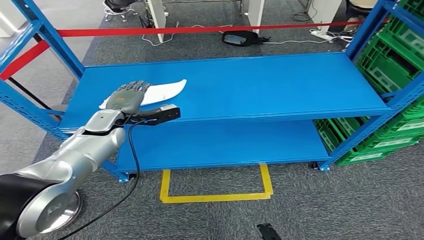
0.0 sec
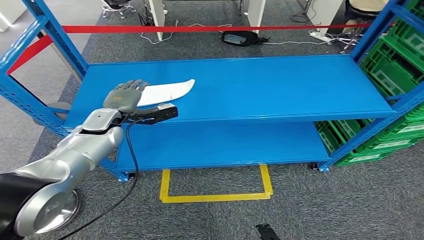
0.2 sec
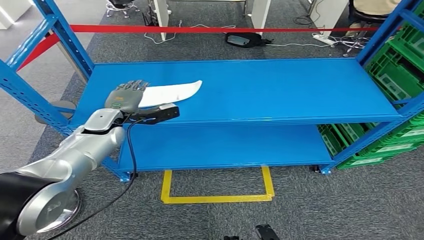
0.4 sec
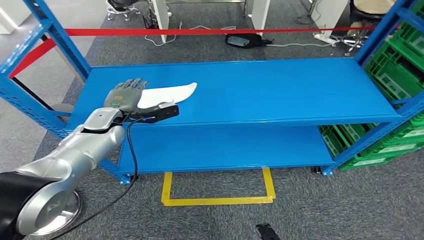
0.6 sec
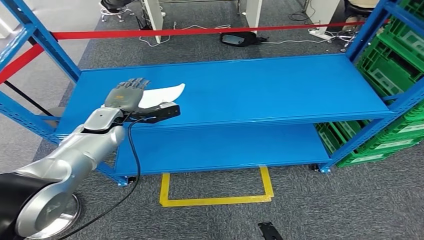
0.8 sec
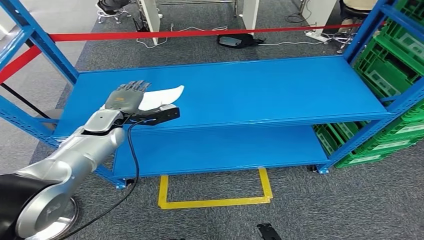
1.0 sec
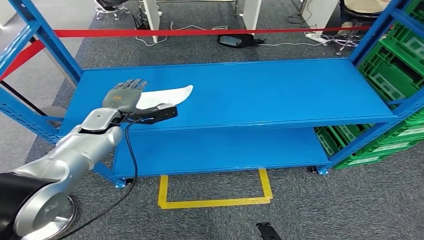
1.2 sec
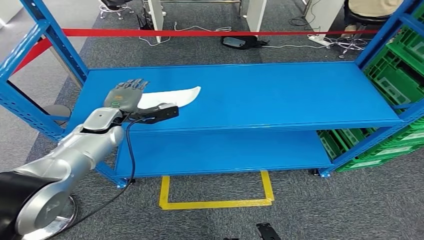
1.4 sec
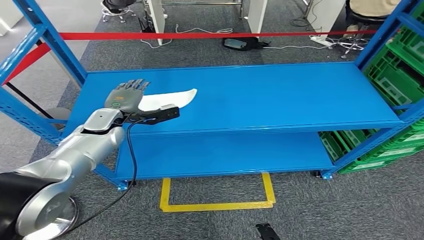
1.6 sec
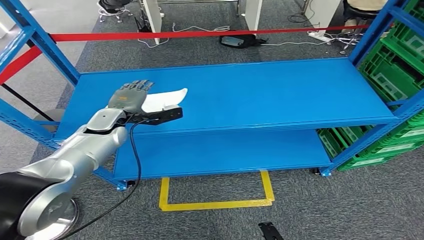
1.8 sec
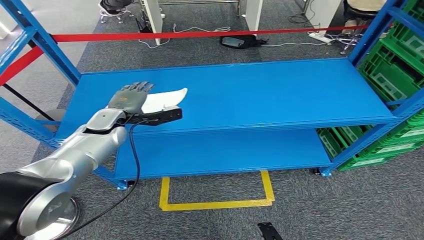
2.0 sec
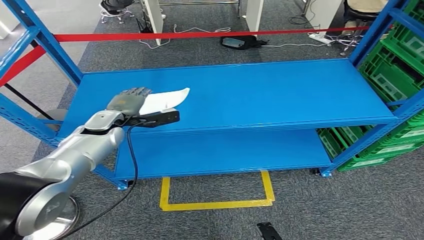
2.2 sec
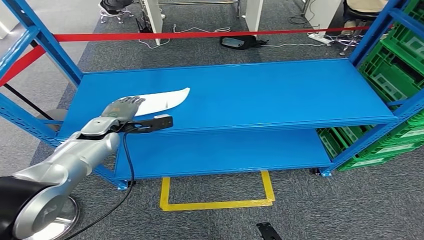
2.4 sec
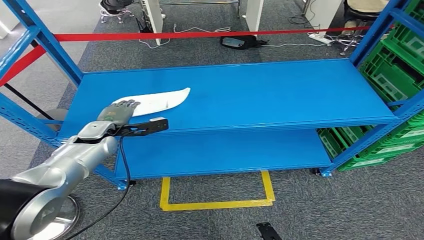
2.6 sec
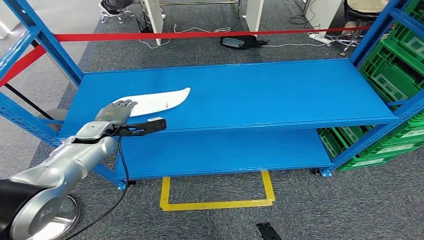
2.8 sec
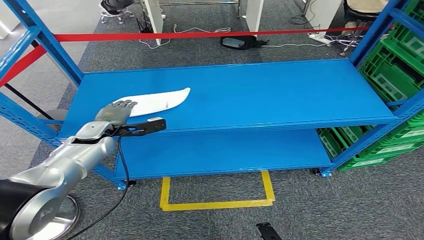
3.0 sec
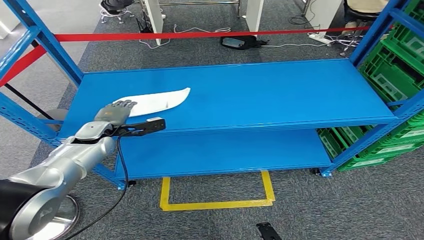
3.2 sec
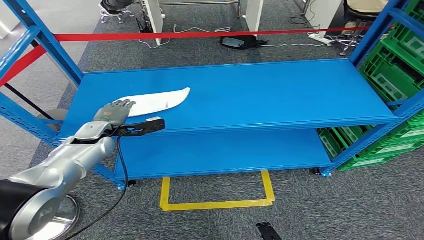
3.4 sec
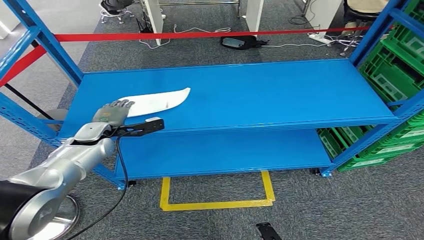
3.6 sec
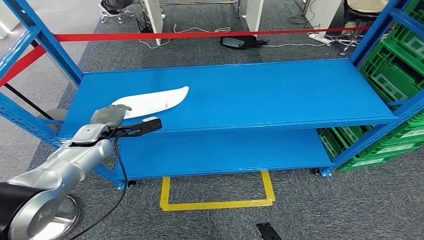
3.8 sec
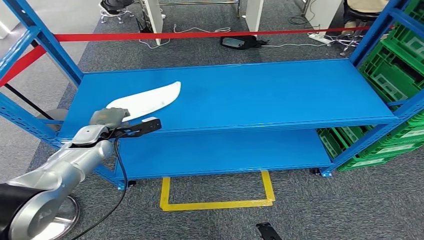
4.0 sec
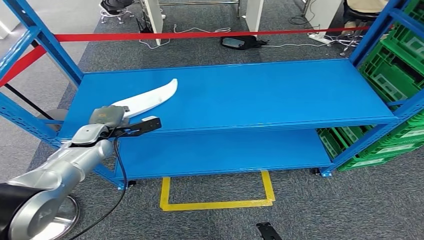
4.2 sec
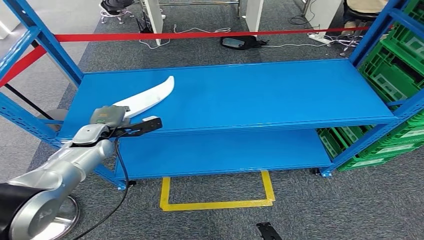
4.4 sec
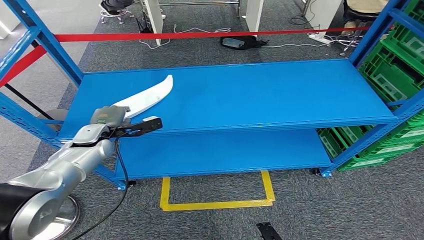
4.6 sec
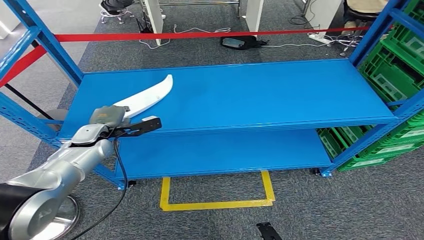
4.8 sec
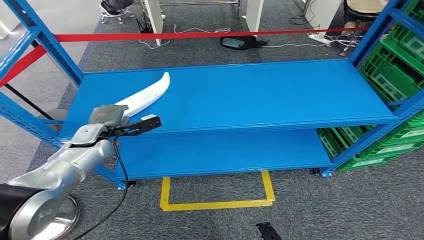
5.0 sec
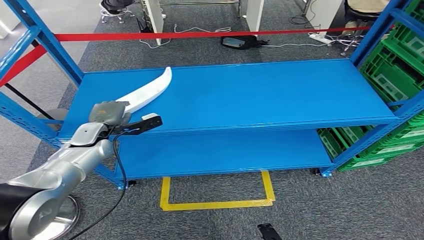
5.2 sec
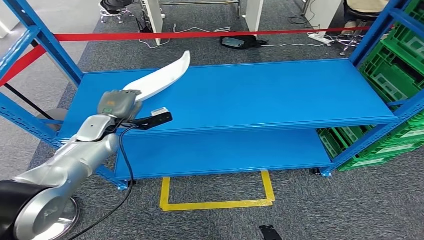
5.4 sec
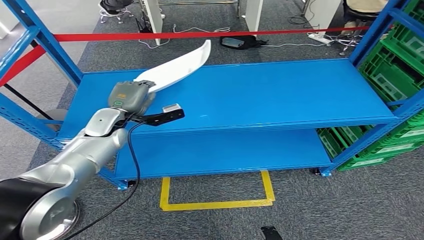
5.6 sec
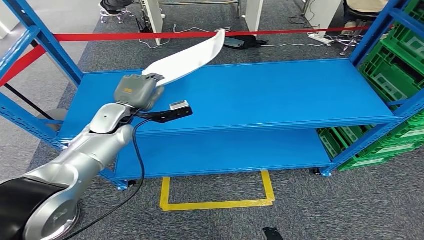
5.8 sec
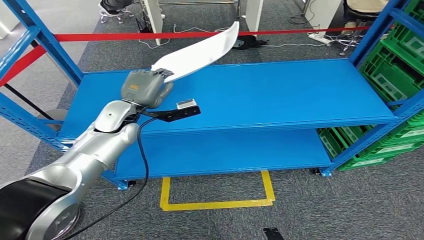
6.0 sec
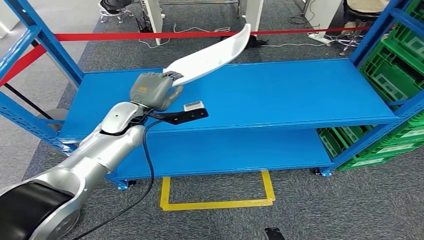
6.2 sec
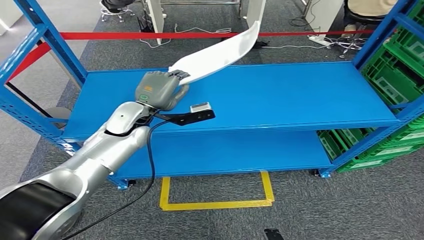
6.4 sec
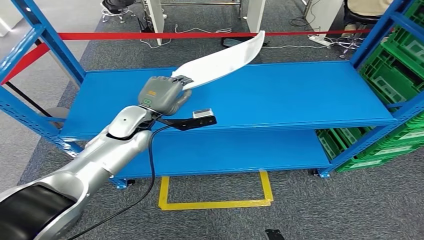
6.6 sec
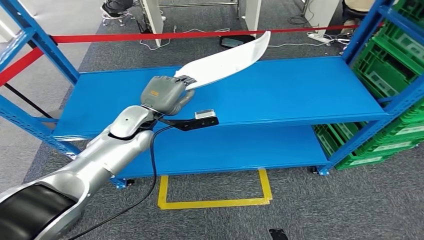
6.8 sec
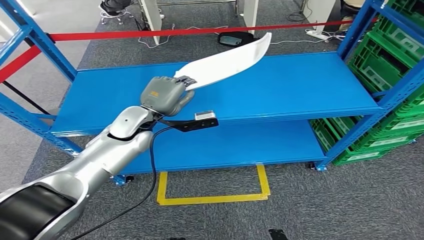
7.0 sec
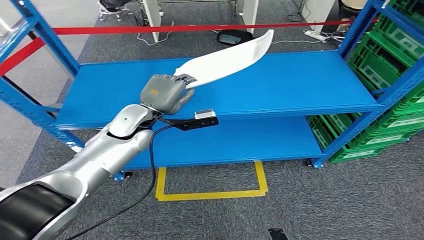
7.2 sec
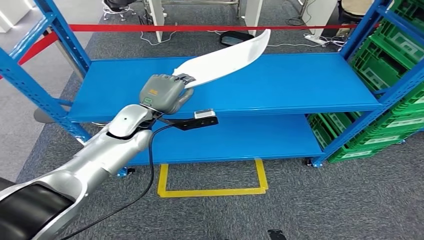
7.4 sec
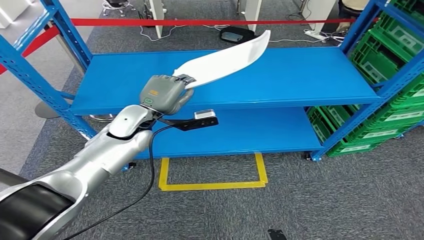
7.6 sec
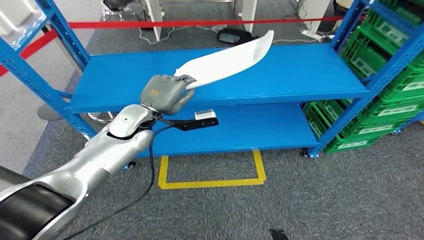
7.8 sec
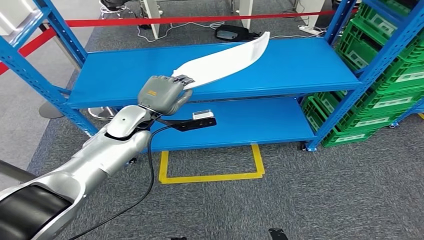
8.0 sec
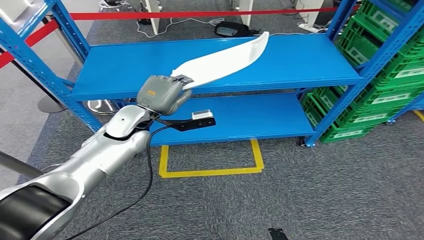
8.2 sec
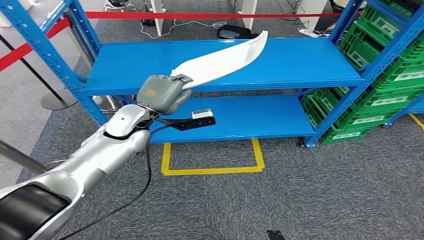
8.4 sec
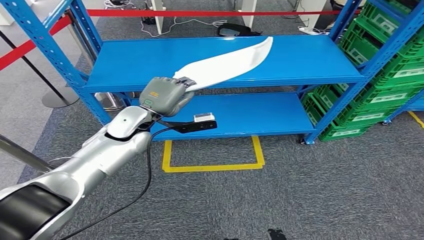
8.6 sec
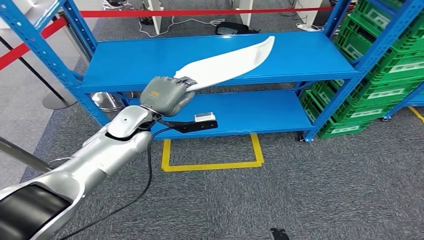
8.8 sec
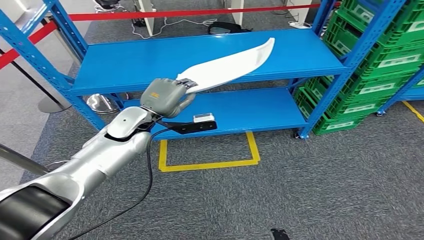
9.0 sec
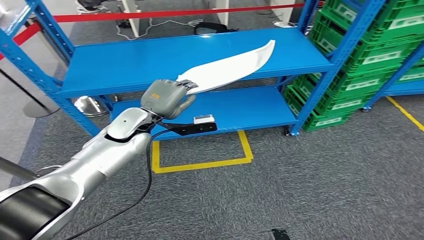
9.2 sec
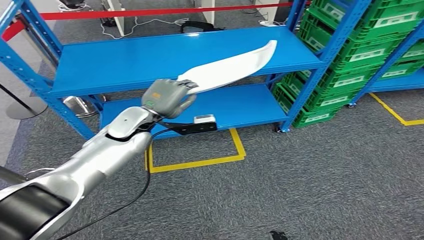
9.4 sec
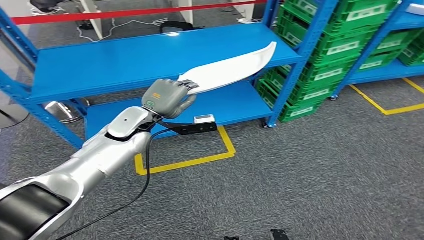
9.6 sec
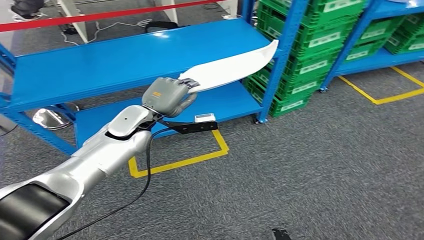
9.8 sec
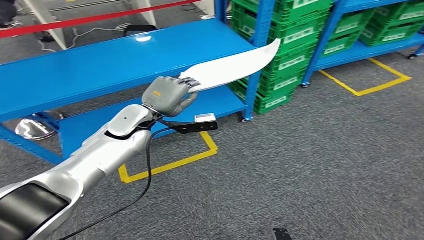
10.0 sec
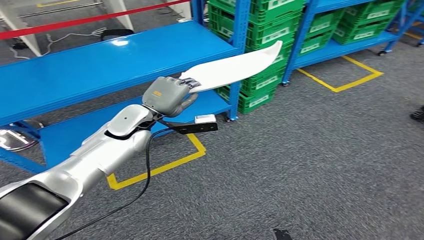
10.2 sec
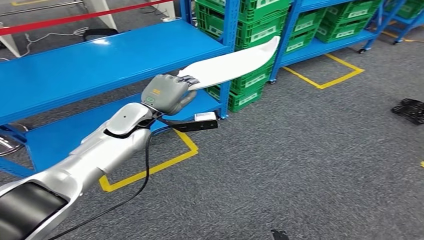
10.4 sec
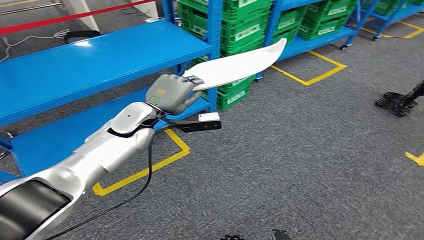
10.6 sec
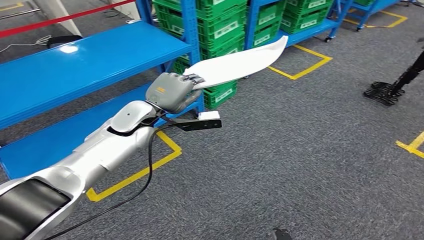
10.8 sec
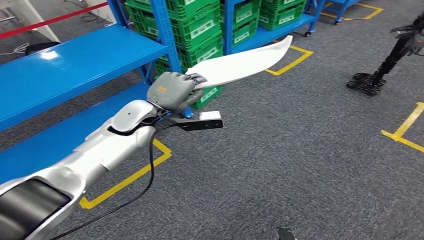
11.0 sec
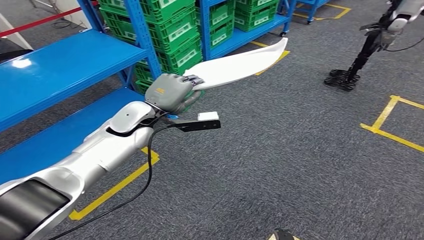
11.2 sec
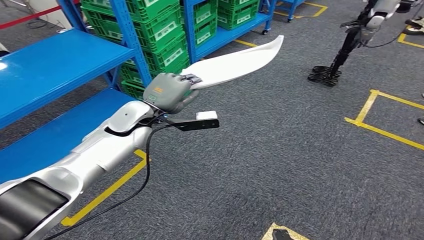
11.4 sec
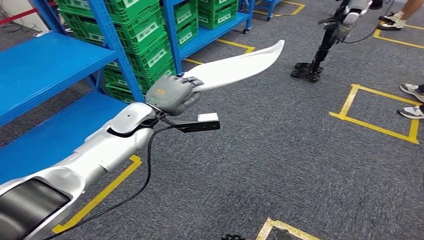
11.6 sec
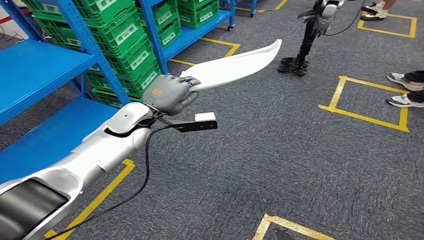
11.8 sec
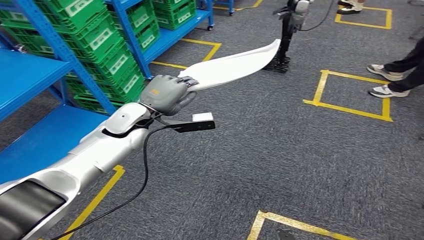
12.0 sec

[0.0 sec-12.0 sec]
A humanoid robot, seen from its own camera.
Step, 0.0 sec to 7.2 sec: Pick up the small parts from the shelf.
1.6 sec to 3.0 sec: The left hand changes place by approximately 5 cm.
3.0 sec to 4.4 sec: The hands make only small movements.
4.4 sec to 6.0 sec: The left hand is displaced to the right and upward by approximately 15 cm.

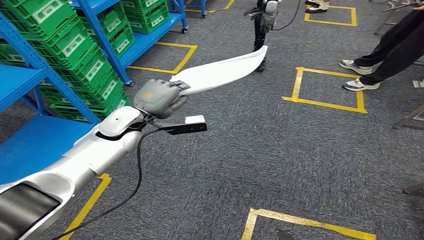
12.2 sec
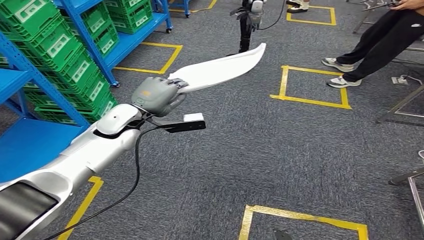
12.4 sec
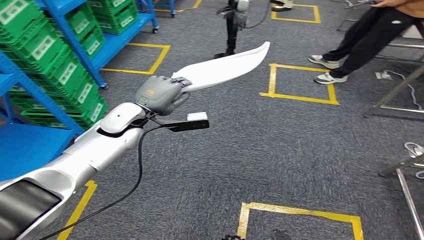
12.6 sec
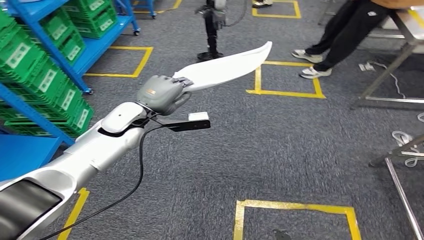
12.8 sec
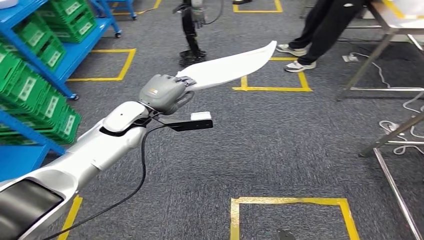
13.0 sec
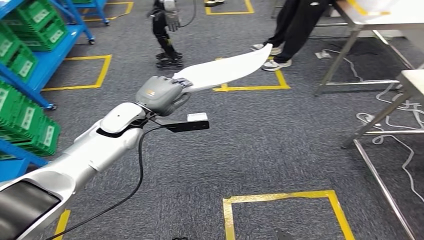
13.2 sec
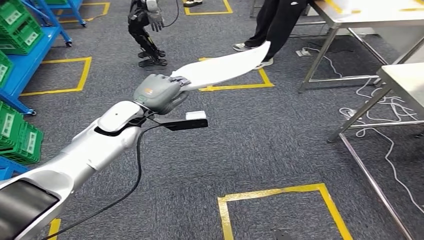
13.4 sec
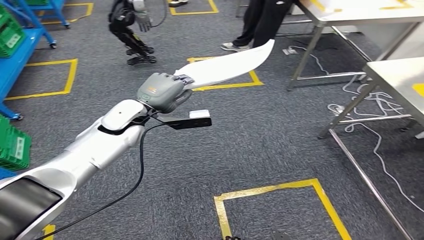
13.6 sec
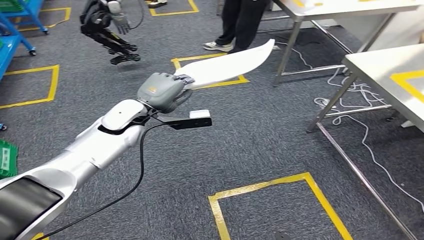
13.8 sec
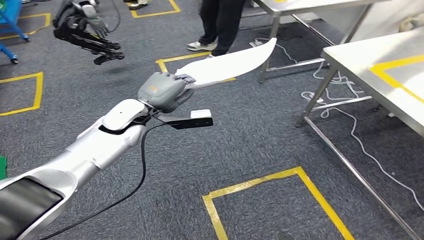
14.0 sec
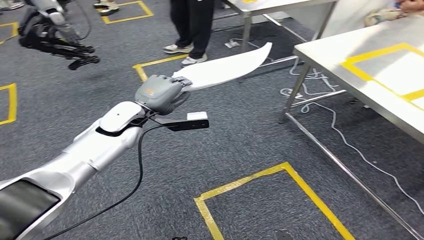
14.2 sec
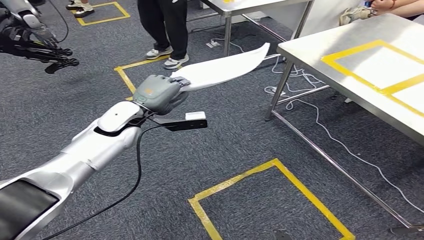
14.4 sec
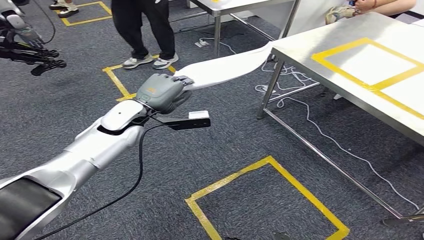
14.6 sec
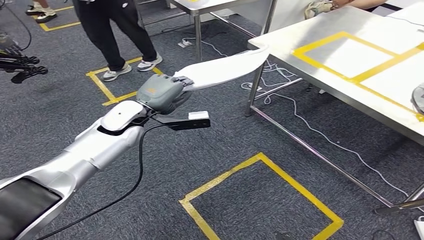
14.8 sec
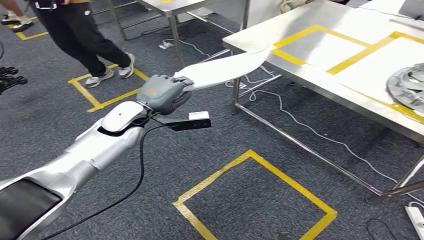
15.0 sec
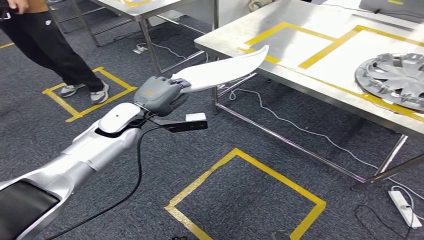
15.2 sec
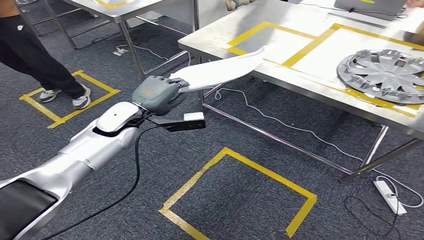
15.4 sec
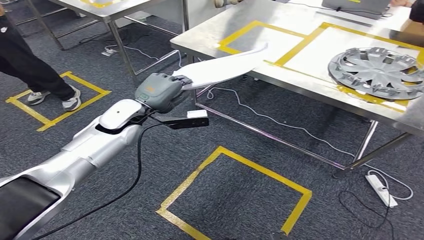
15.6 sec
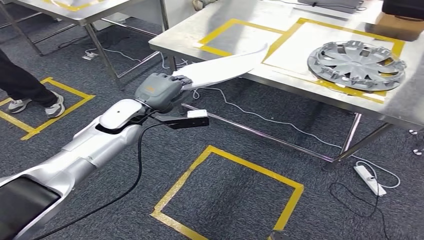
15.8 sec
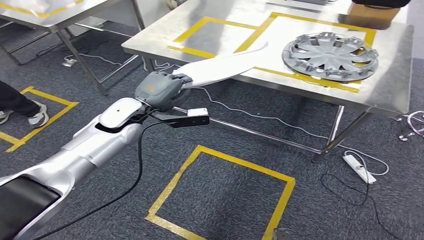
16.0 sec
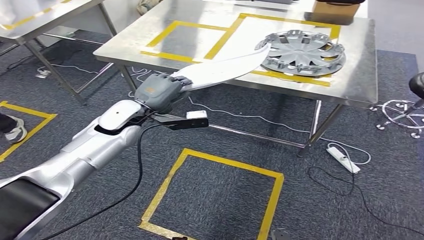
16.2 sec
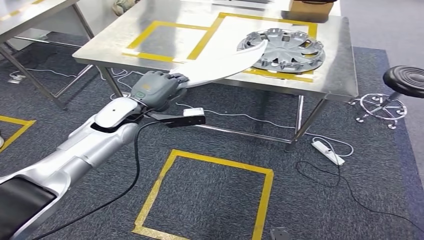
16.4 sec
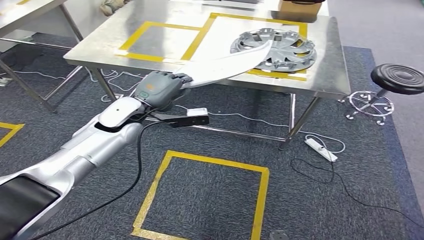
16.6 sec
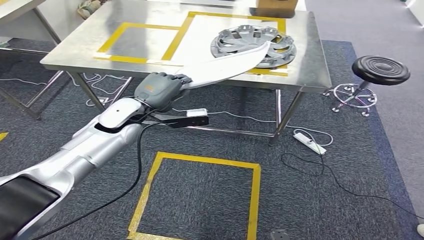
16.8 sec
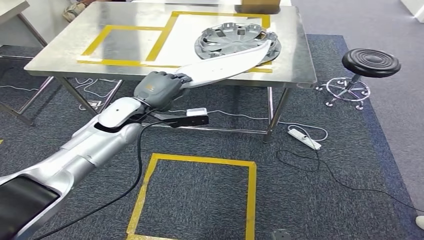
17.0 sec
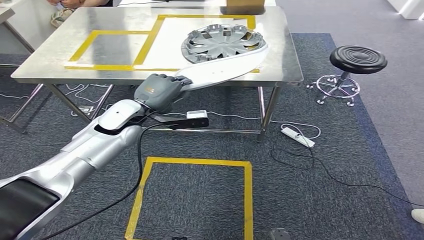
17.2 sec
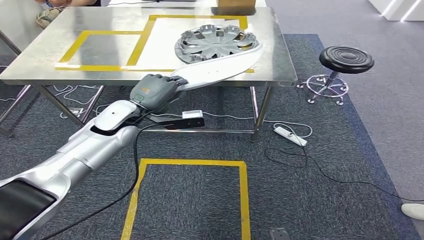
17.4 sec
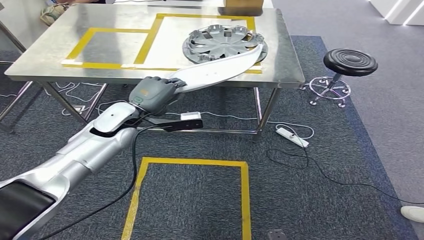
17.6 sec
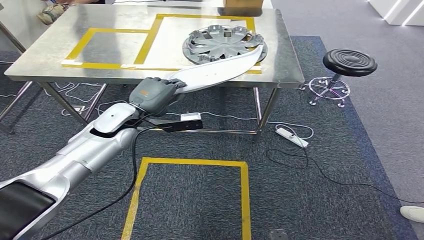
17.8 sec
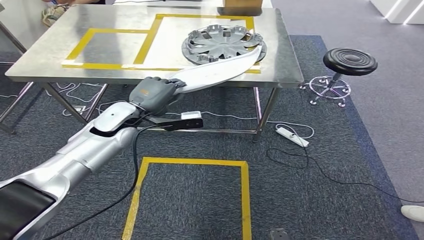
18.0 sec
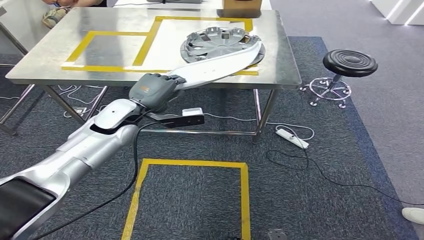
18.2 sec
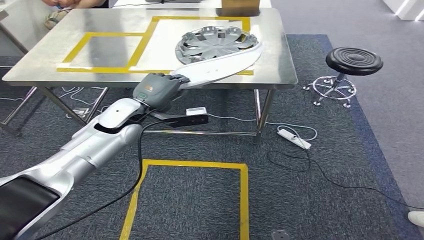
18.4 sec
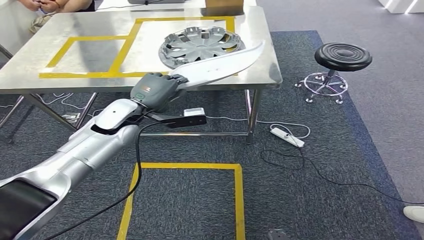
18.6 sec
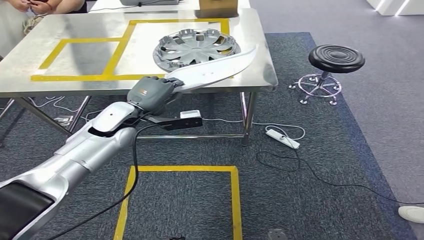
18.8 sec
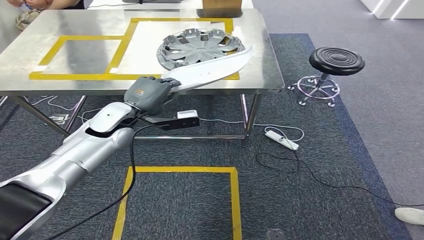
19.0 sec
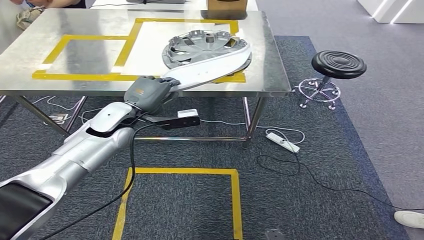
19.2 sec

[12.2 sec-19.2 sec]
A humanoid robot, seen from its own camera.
Step, 12.2 sec to 18.8 sec: Move the small parts to the workbench.
